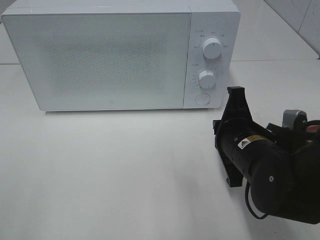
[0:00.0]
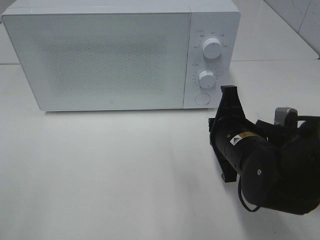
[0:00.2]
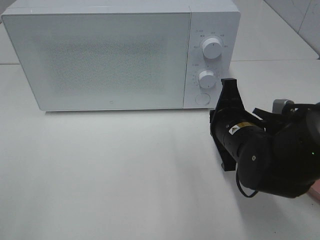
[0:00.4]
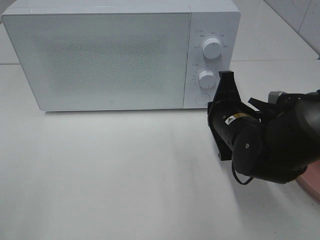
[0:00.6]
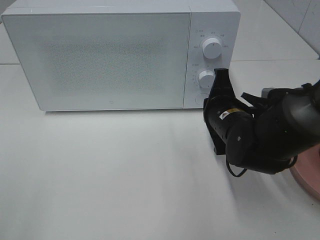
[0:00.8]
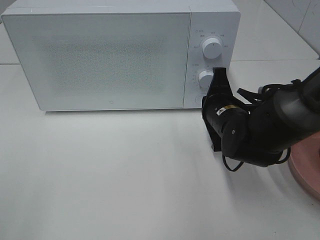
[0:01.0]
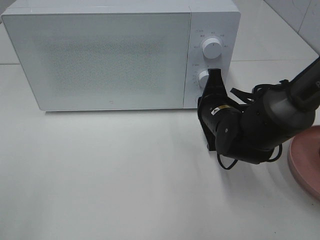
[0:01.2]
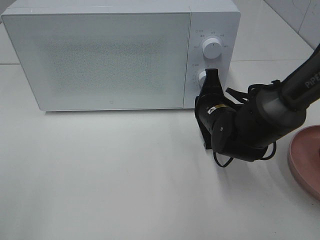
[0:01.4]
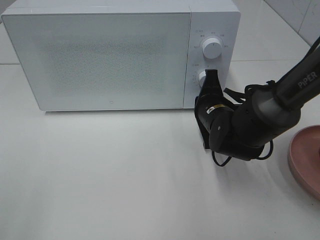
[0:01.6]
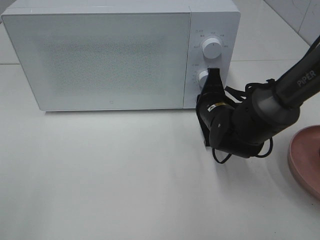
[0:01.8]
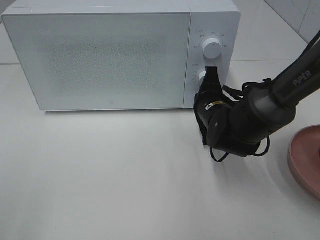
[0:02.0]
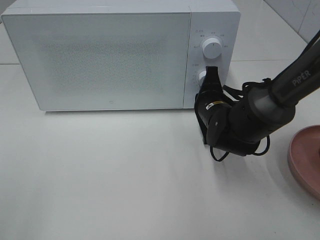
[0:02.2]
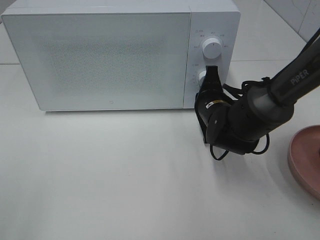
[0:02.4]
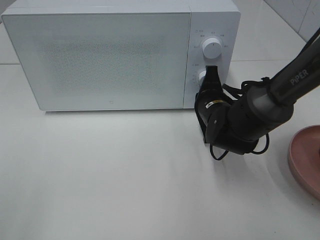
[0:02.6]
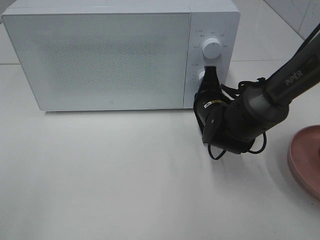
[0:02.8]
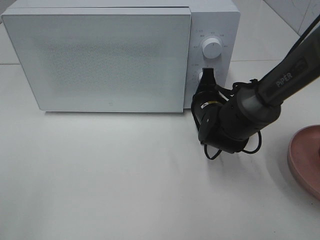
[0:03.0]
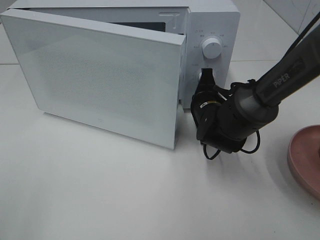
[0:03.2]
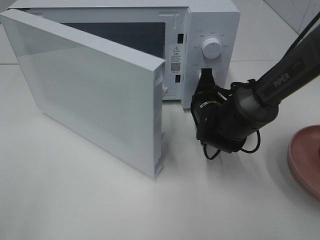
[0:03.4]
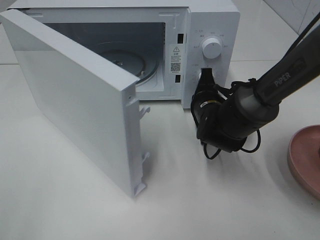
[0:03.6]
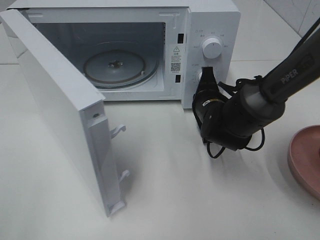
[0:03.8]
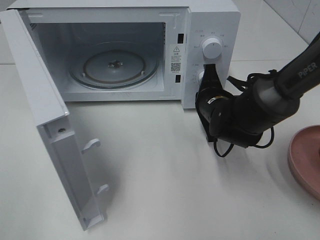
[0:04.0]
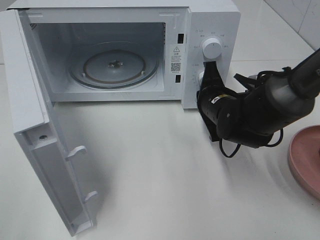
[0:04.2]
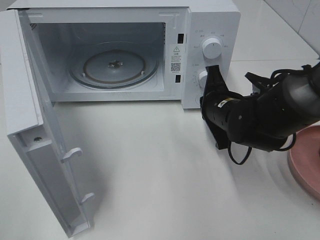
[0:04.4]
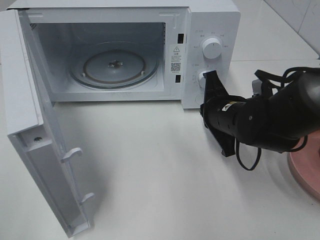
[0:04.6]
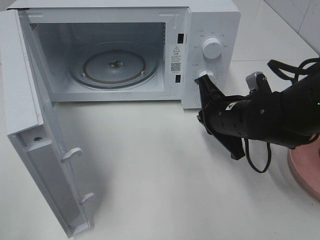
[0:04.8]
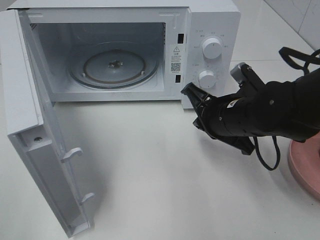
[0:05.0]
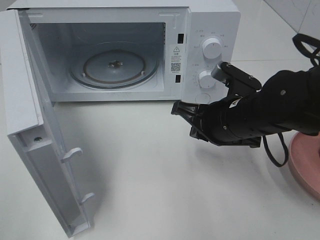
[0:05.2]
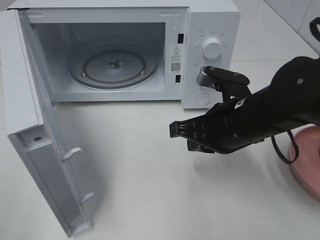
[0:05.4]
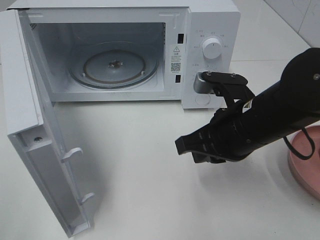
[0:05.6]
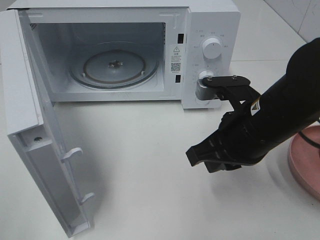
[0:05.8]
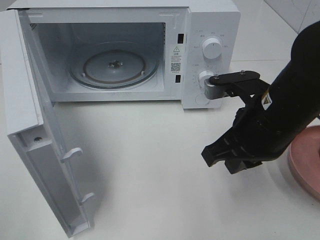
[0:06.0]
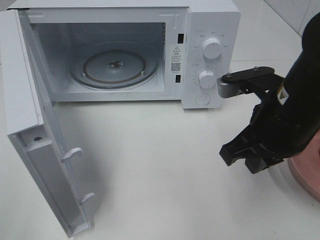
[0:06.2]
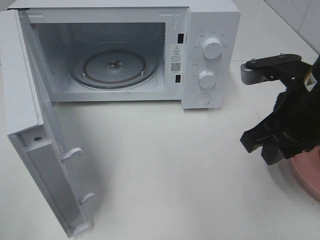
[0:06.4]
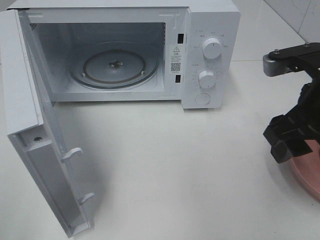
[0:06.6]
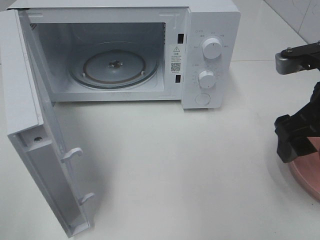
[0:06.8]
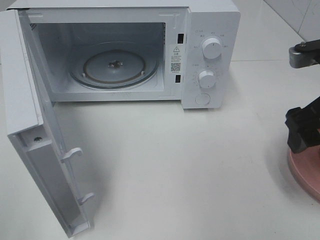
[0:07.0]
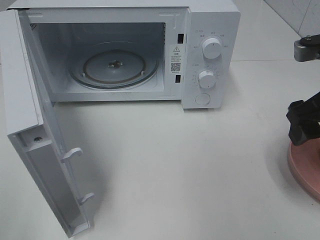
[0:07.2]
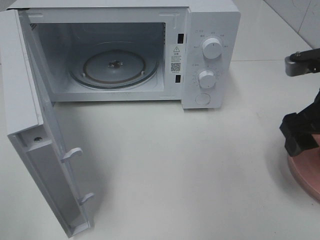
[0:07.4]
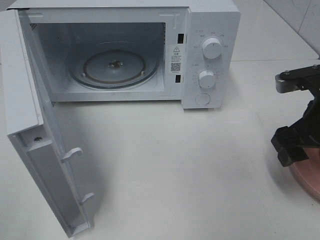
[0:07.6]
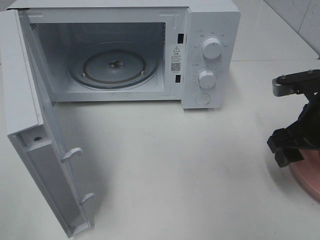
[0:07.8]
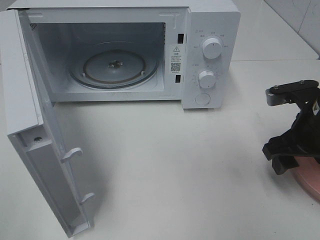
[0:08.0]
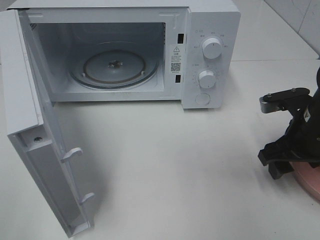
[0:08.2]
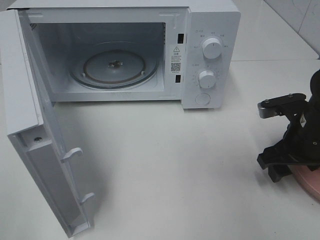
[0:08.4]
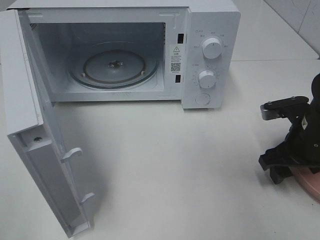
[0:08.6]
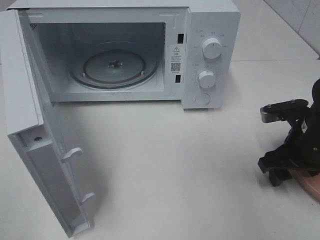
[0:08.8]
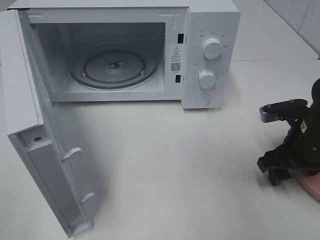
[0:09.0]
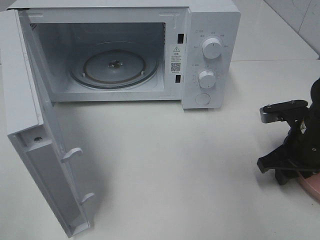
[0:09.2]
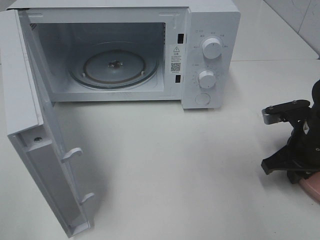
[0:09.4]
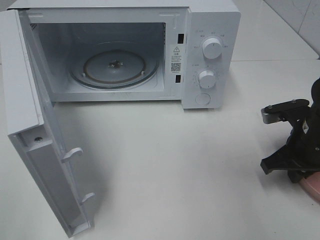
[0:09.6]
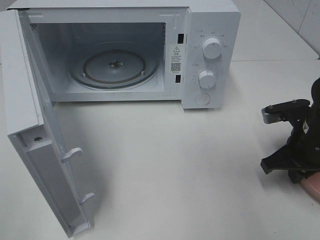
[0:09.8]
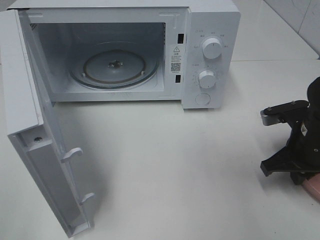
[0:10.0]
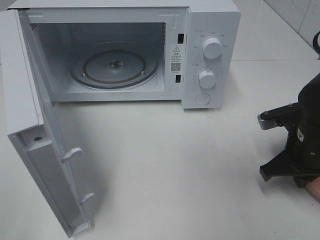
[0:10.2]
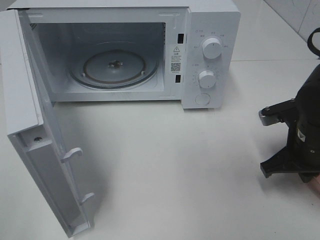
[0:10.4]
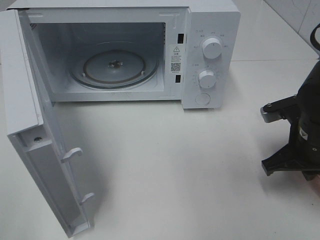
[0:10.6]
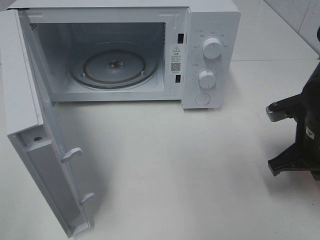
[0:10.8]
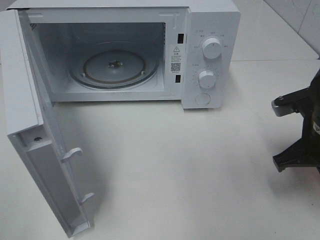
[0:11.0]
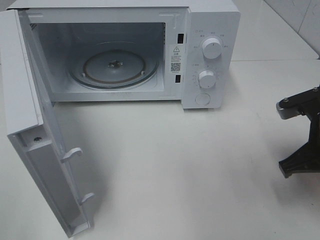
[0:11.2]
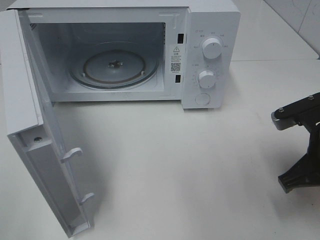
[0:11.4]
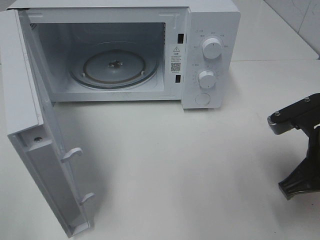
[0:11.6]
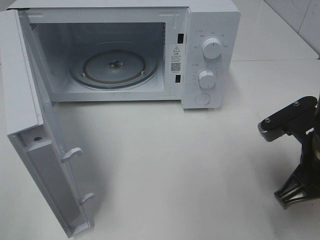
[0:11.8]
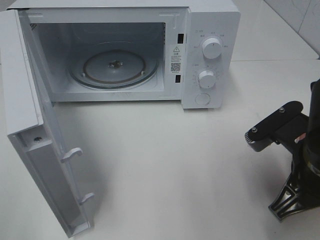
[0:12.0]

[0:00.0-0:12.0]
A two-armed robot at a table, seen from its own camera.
Task of the whole recording: Heat the burger.
Step, 0:00.0 to 0:04.2: Right hand: press the switch.
Step, 0:04.4 to 0:09.8: Right hand: grab the plate with the hamburger.
0:00.0 to 0:01.6: The right gripper shifts about 10 cm forward.
0:01.6 to 0:03.0: The grippers stay close to where they were, moving slightly.
0:03.0 to 0:04.4: The right gripper changes place by approximately 5 cm.
0:04.4 to 0:06.0: The right gripper moves backward and upward, about 15 cm.
0:06.0 to 0:07.6: The right gripper moves to the right, roughly 10 cm, and opens up.
0:07.6 to 0:09.0: The right gripper shifts approximately 10 cm downward.
0:09.0 to 0:10.4: The right gripper closes up.
0:10.4 to 0:12.0: The right gripper shifts roughly 10 cm backward, upward and to the left.

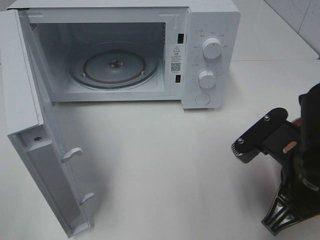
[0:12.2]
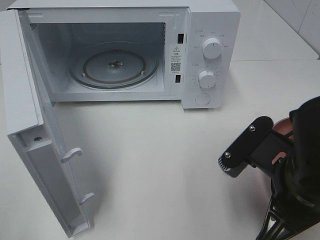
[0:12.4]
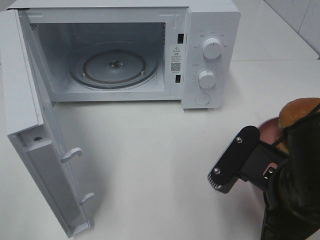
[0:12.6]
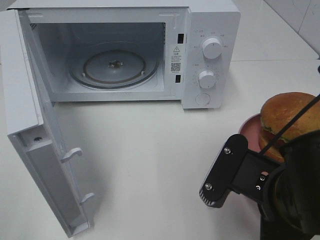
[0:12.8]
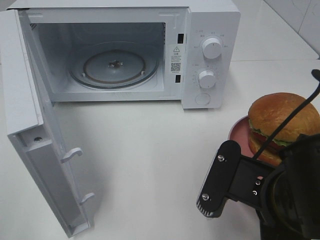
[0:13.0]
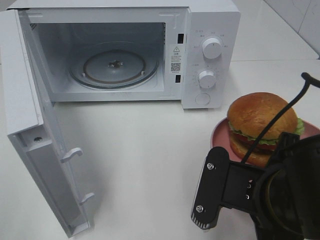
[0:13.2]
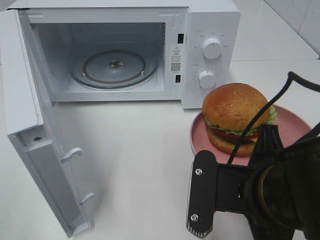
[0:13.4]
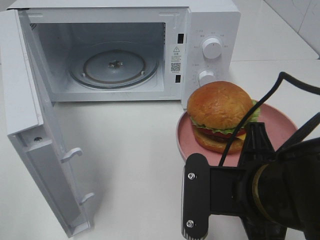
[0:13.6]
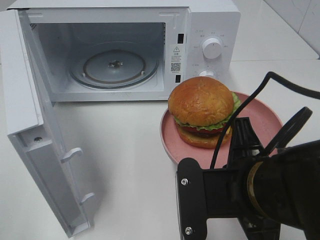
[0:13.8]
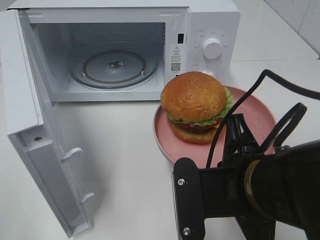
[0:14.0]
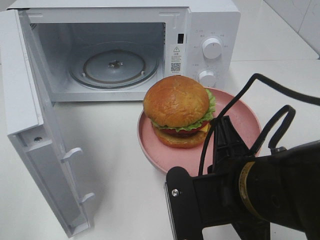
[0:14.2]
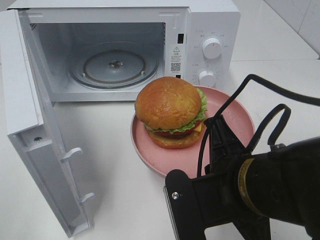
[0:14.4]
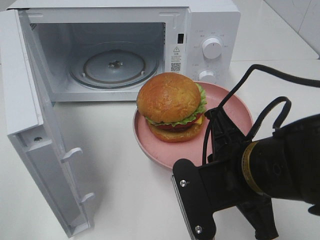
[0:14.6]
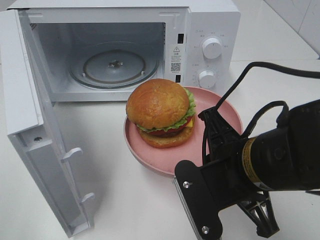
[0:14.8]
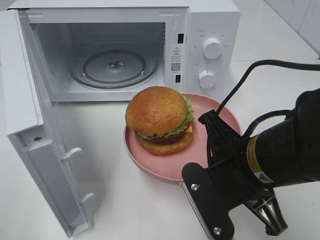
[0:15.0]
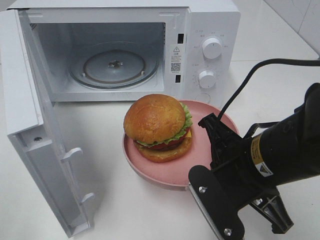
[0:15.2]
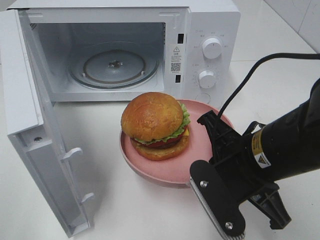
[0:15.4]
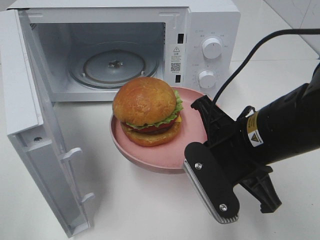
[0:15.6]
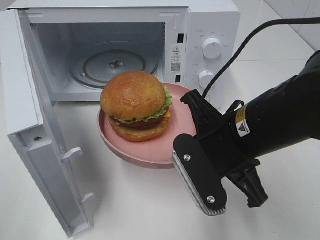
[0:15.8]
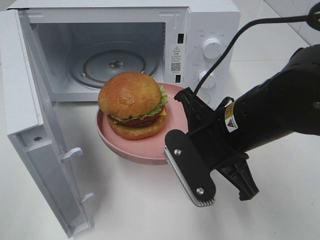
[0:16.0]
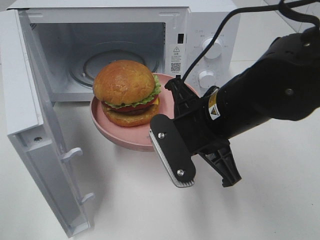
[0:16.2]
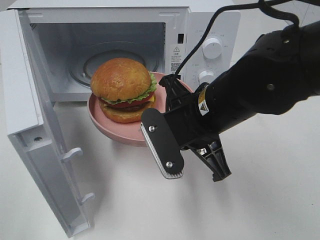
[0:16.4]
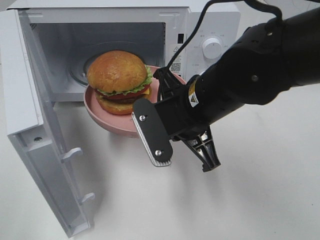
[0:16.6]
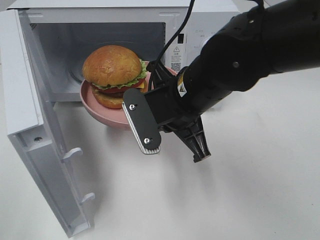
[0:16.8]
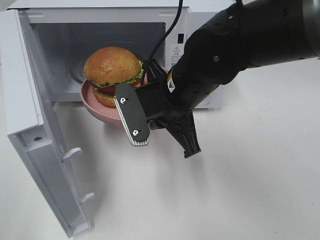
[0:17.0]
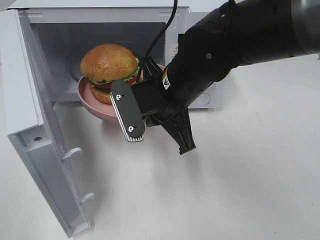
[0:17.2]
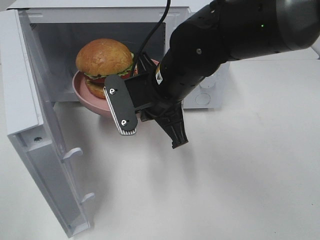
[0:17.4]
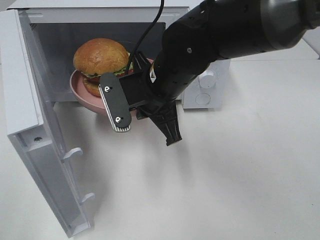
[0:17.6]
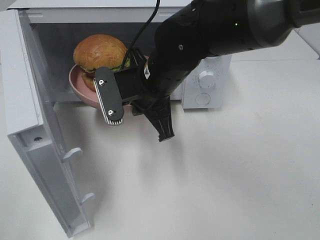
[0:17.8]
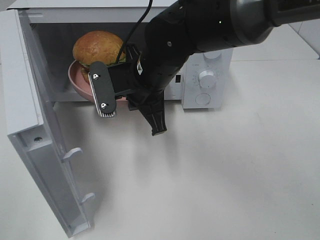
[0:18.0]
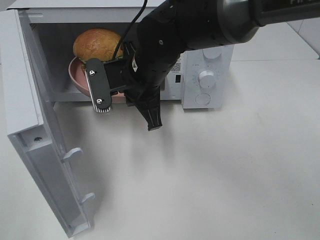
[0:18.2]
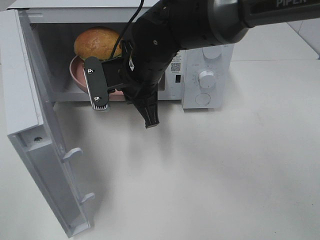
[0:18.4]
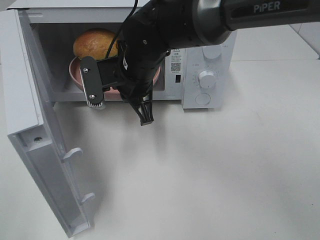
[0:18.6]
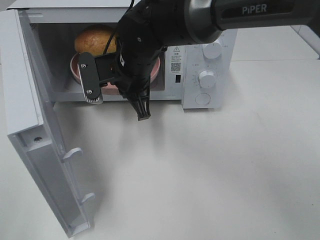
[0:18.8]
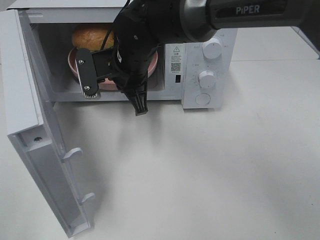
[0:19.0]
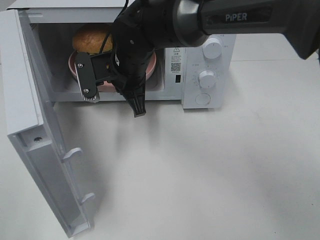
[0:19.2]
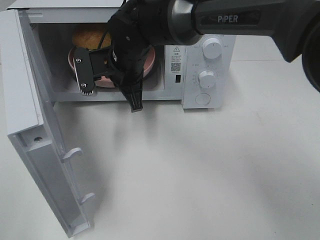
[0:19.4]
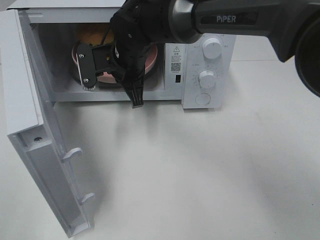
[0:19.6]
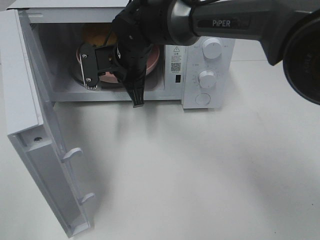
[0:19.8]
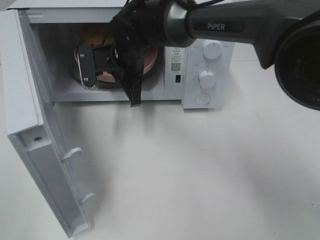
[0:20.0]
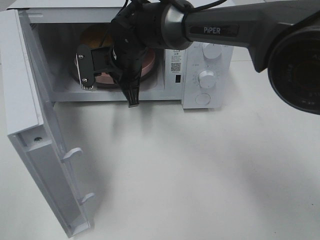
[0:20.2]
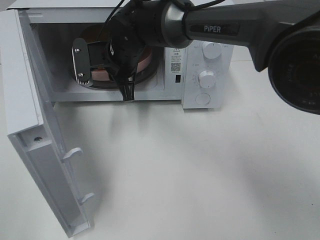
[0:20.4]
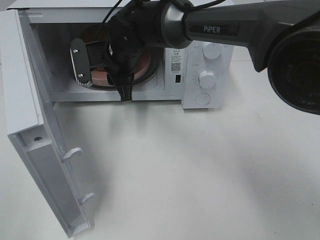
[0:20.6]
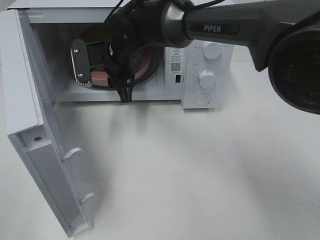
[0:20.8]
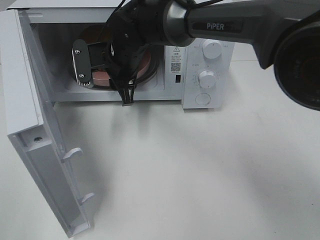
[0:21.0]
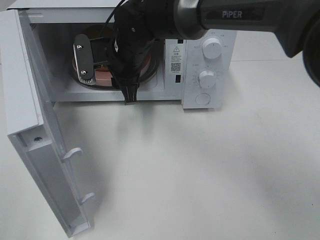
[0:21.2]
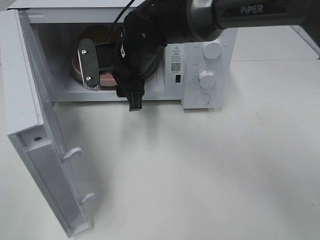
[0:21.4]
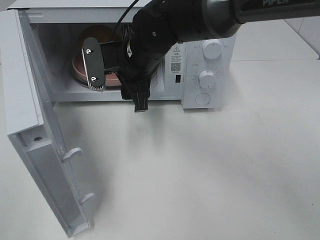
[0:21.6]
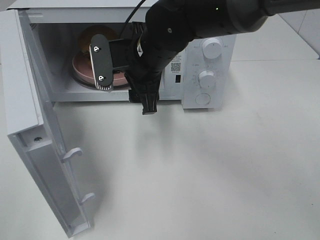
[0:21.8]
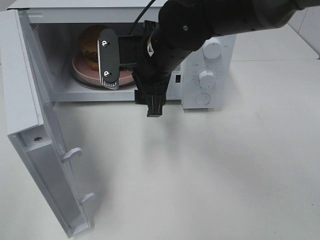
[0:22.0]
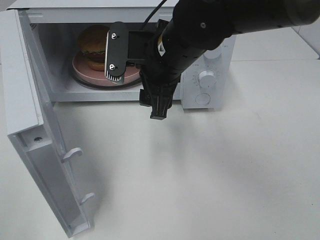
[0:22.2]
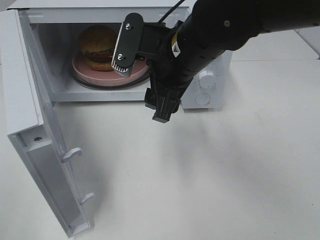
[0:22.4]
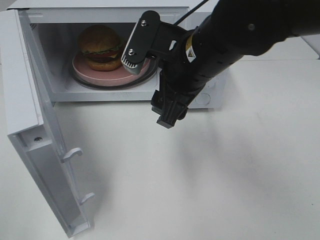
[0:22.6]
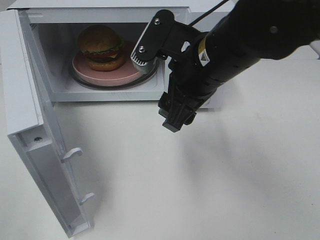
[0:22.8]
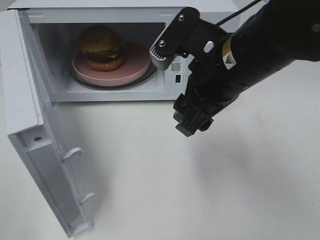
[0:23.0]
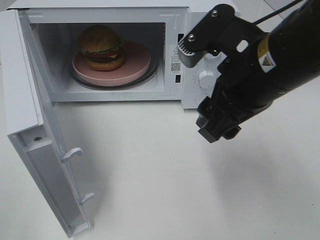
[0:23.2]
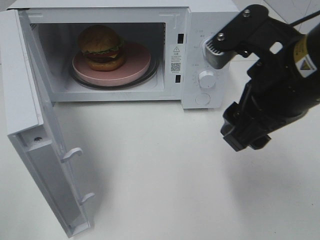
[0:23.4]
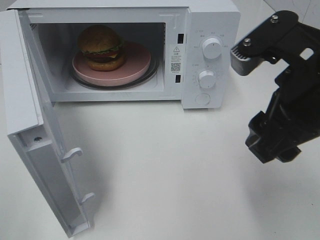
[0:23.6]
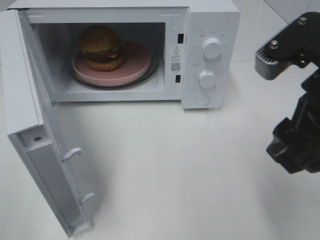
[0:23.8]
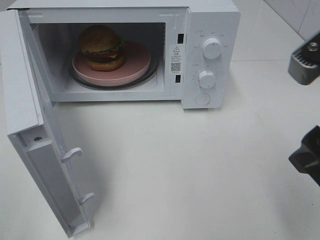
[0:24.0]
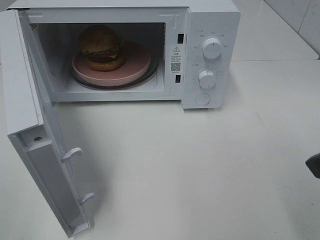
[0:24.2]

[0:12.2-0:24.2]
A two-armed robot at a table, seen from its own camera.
Task of the whole recording: Heat the burger.
Step, 0:12.2 to 0:20.4: Right hand: place the plate in the microwave.
0:12.2 to 0:13.8: The right gripper shifts approximately 5 cm to the left.
0:15.2 to 0:16.6: The right gripper shifts about 10 cm forward and to the left.
0:16.6 to 0:18.2: The right gripper is displaced forward and to the left by about 10 cm.
0:18.2 to 0:19.8: The right gripper is displaced forward by approximately 5 cm.
0:19.8 to 0:21.2: The right gripper opens.
0:21.2 to 0:22.6: The right gripper moves backward, to the right and upward, approximately 15 cm.
0:22.6 to 0:24.2: The right gripper shifts some 25 cm to the right and backward.
